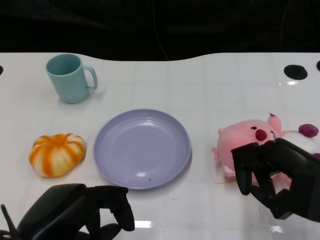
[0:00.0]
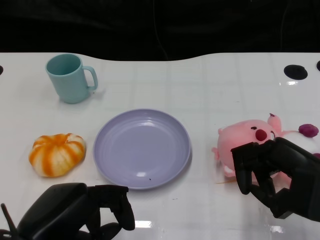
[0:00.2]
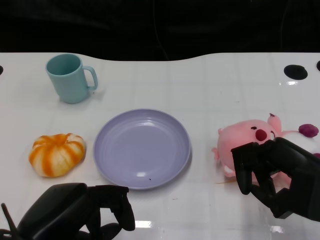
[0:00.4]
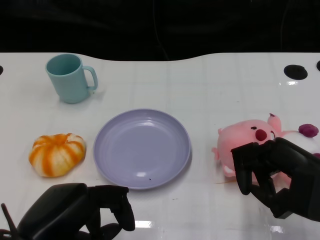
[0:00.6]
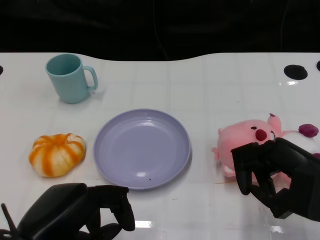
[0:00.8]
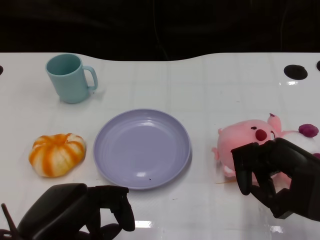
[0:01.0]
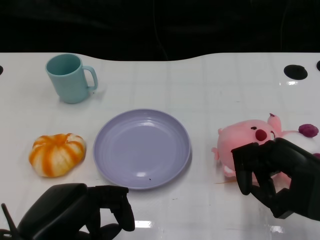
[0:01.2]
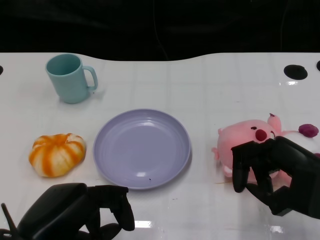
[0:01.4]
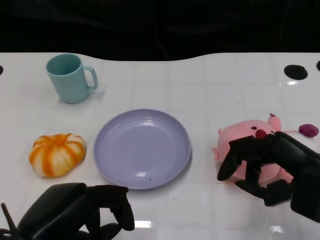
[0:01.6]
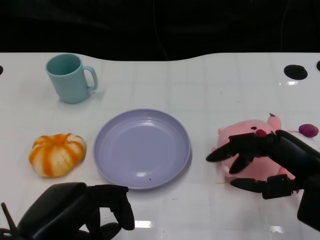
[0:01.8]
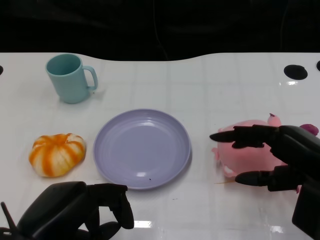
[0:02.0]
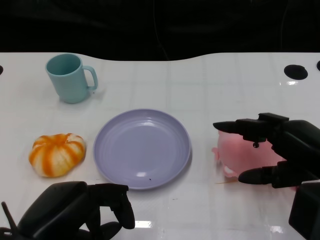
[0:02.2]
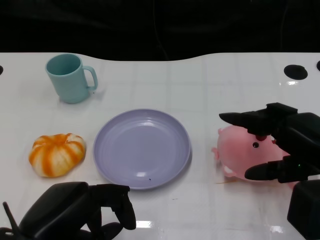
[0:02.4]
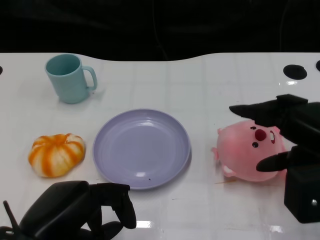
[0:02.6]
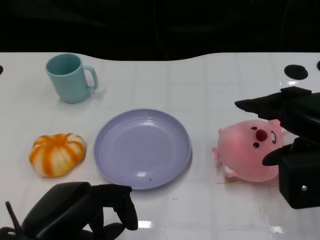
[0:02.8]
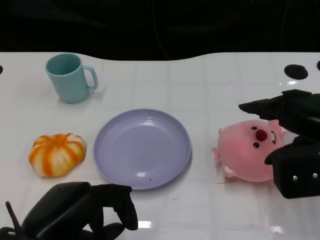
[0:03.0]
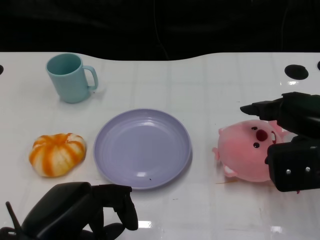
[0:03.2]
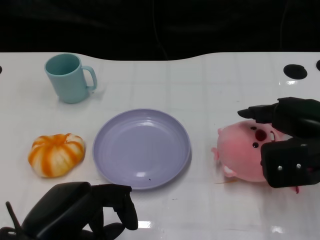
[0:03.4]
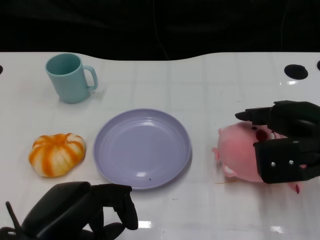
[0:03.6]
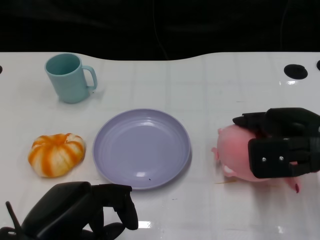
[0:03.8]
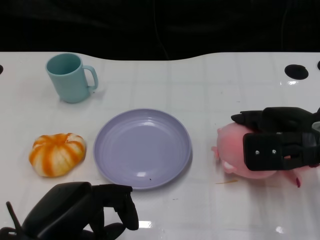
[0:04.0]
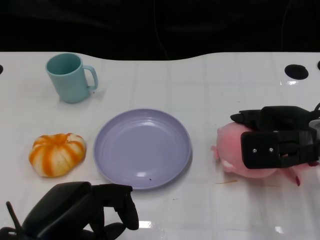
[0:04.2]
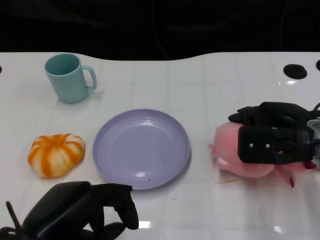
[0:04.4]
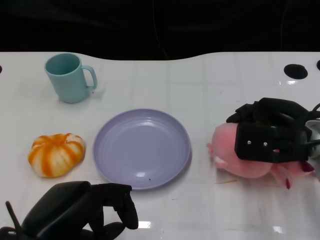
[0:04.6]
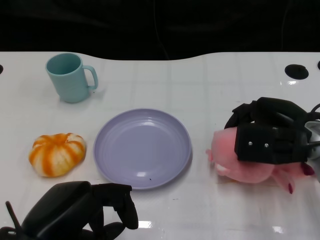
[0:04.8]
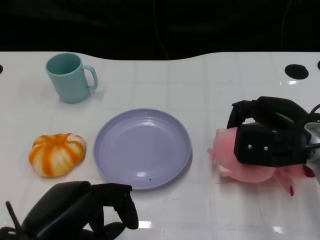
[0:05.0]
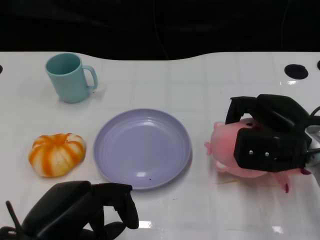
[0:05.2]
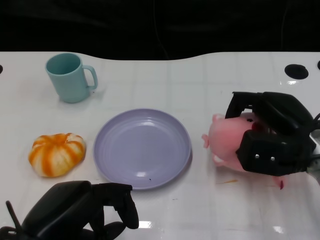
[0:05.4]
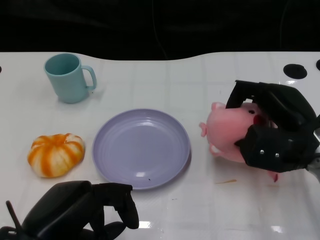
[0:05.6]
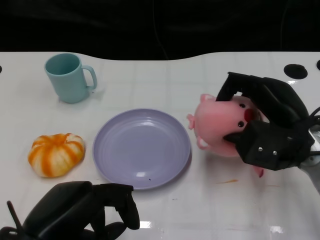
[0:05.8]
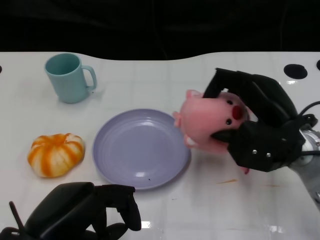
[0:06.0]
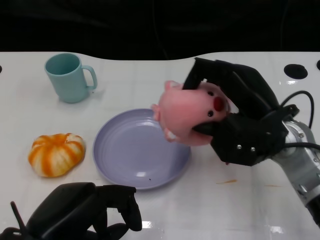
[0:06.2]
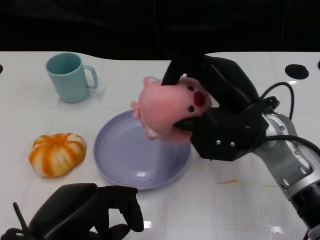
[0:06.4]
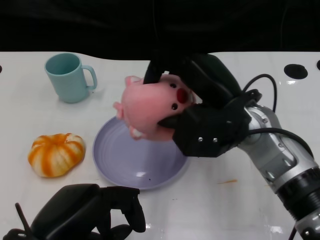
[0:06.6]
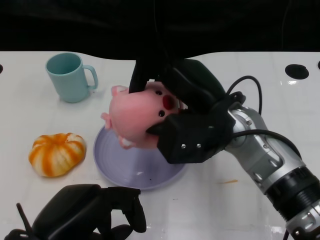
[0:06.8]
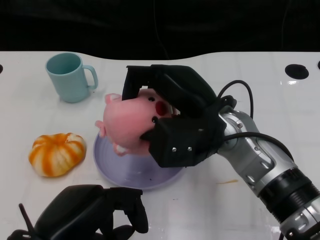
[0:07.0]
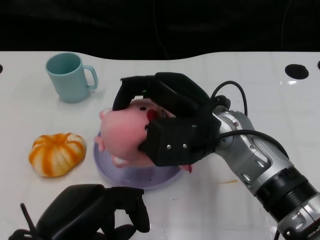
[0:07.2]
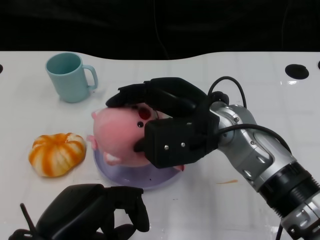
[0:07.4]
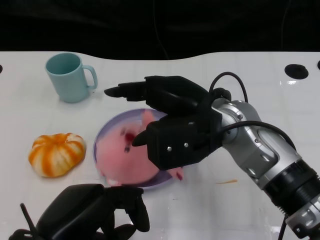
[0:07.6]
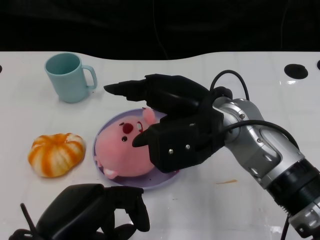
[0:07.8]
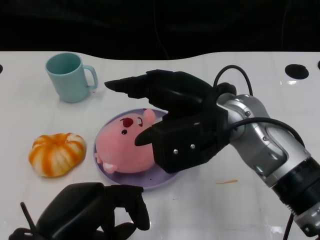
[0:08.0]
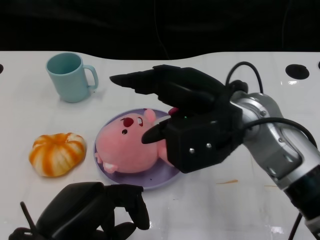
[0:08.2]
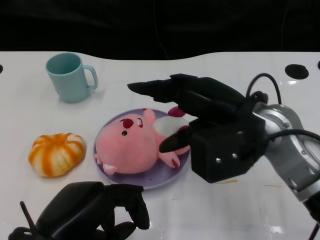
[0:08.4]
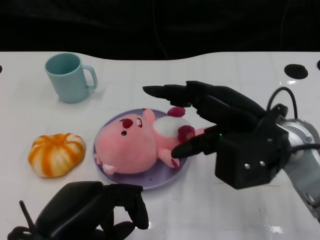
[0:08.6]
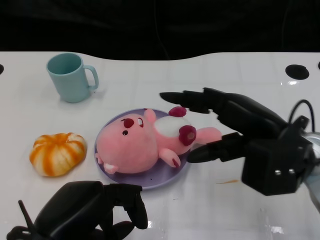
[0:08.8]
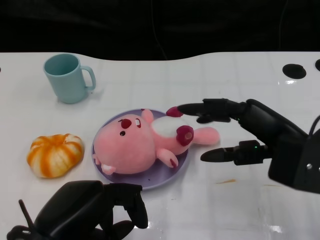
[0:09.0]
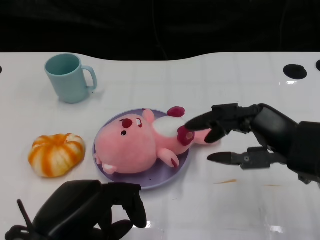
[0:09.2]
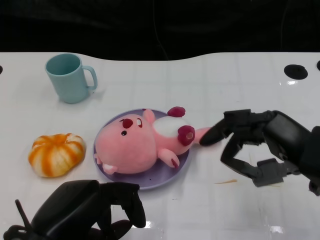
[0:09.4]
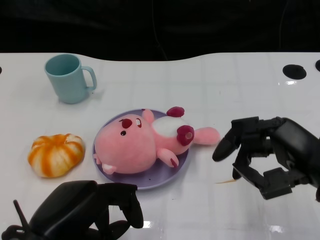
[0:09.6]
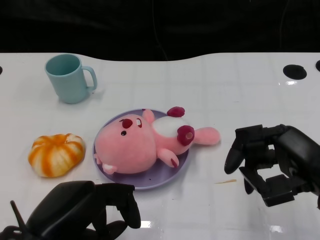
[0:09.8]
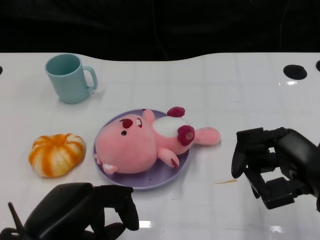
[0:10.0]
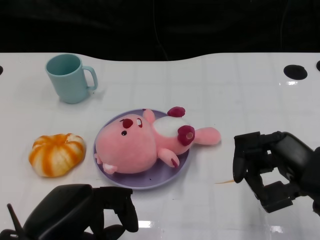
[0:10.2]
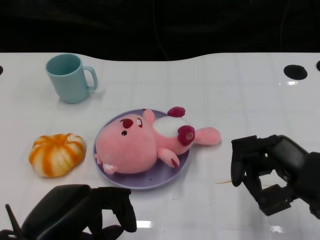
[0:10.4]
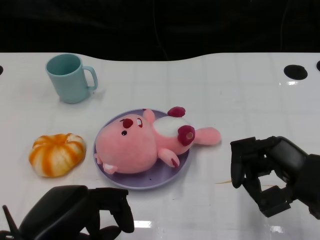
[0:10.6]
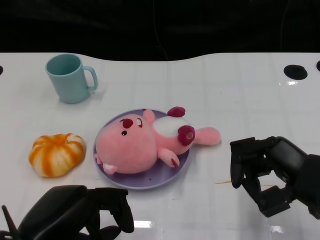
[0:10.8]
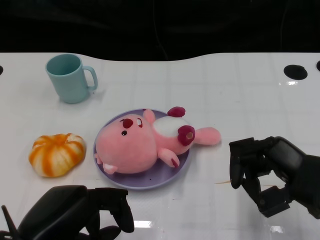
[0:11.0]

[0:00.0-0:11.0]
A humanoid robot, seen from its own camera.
Task of the whole recording: Pick up the doll on the other side of the plate and place it into the plate.
Step, 0:01.2 to 0:05.8: Grasp the pink doll with the right gripper.
Step, 0:06.2 to 0:08.2: Place the pink doll into the plate with the right gripper.
0:01.6 to 0:03.2: The right hand ends up some 5 cm from where it was.
0:03.2 to 0:04.8: The right hand heads downward, covering some 5 cm.
0:04.8 to 0:06.2: The right hand travels to the left by about 5 cm.
0:06.2 to 0:07.8: The right hand moves to the left, roughly 10 cm.
0:07.8 to 0:09.4: The right hand travels to the right and backward by some 15 cm.
0:09.4 to 0:11.0: The hands stay close to where they were, moving slightly.

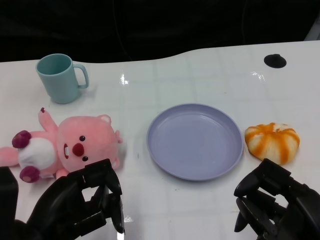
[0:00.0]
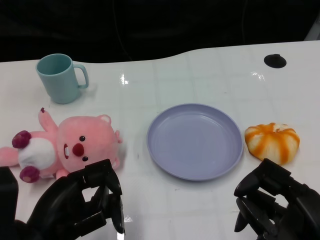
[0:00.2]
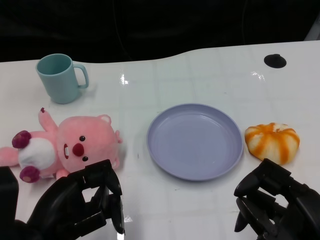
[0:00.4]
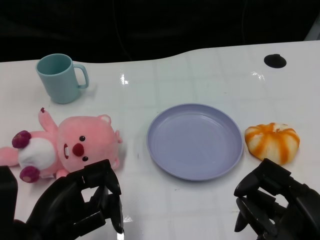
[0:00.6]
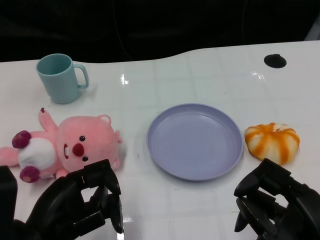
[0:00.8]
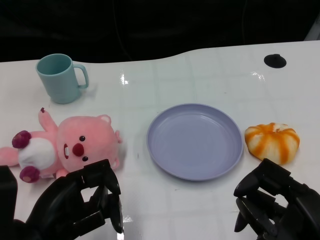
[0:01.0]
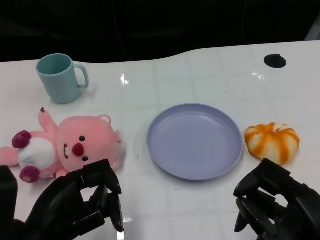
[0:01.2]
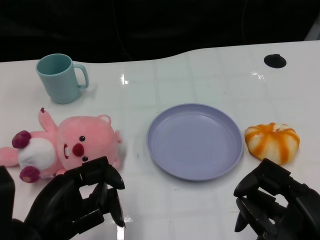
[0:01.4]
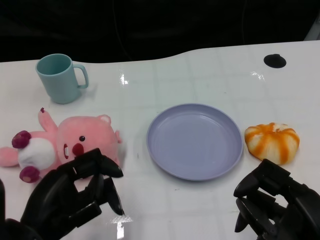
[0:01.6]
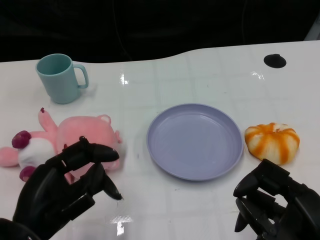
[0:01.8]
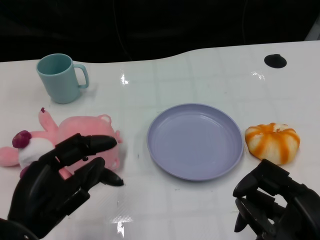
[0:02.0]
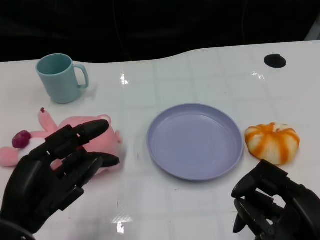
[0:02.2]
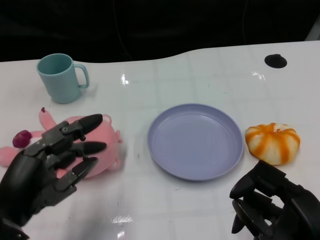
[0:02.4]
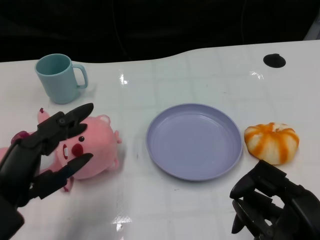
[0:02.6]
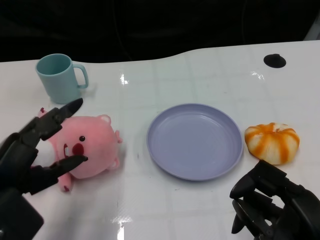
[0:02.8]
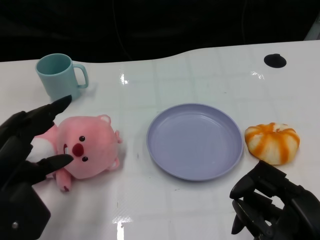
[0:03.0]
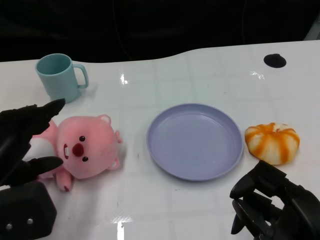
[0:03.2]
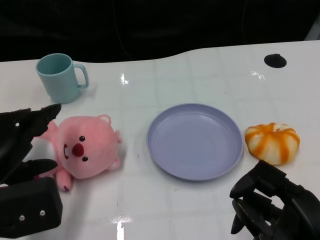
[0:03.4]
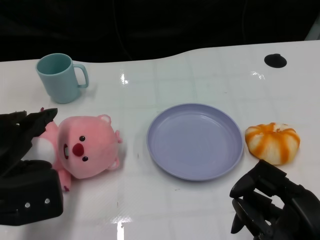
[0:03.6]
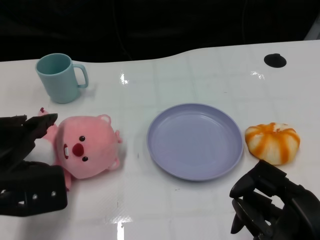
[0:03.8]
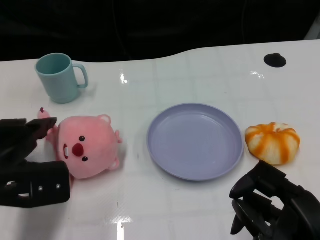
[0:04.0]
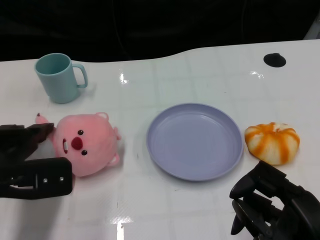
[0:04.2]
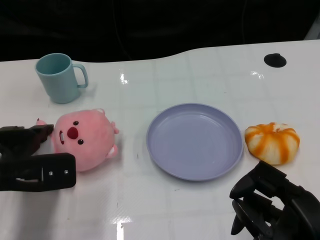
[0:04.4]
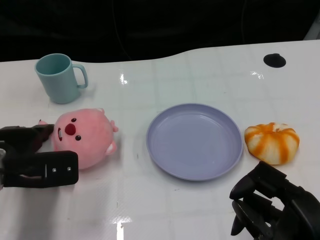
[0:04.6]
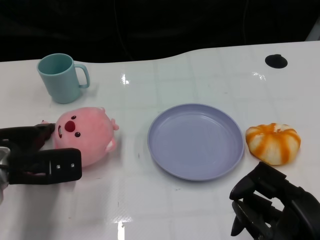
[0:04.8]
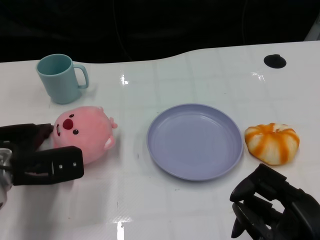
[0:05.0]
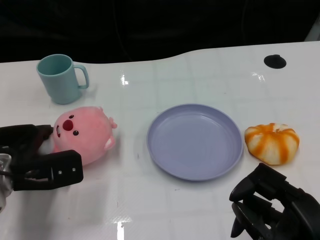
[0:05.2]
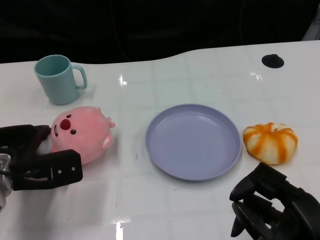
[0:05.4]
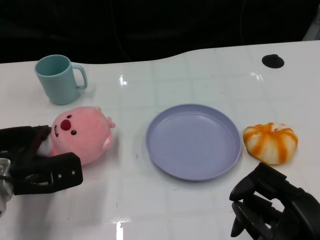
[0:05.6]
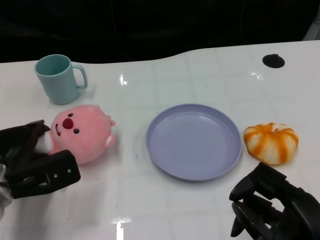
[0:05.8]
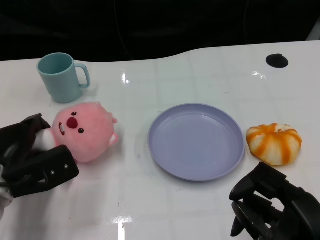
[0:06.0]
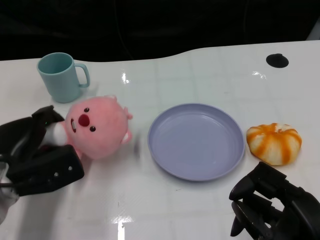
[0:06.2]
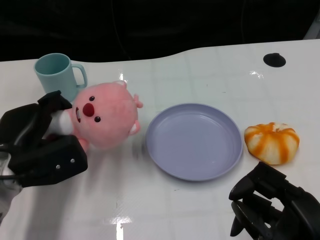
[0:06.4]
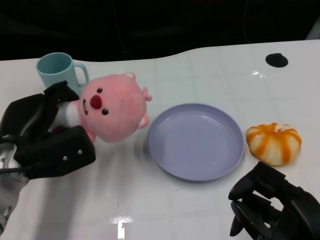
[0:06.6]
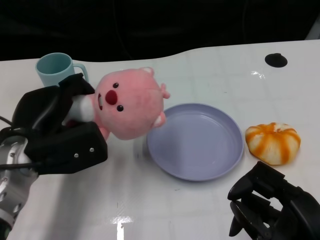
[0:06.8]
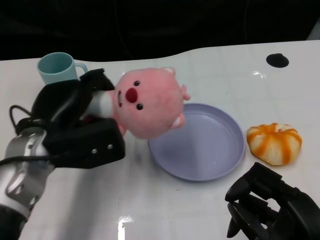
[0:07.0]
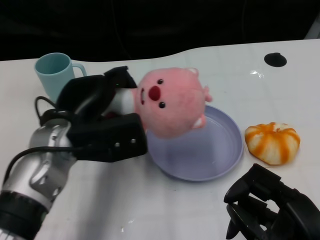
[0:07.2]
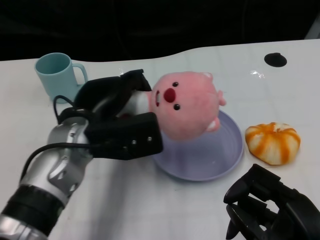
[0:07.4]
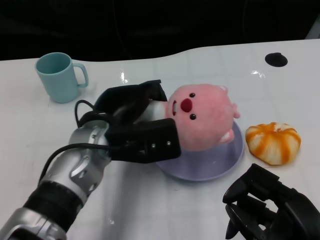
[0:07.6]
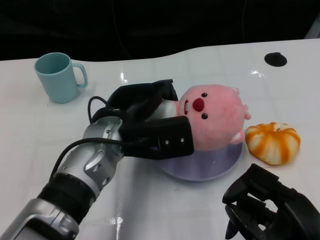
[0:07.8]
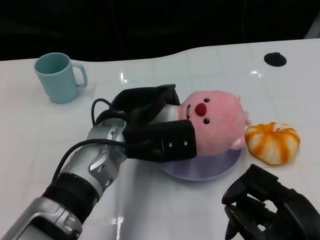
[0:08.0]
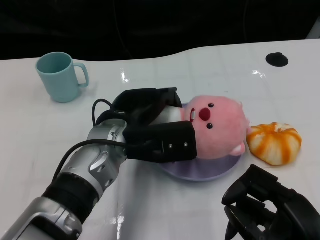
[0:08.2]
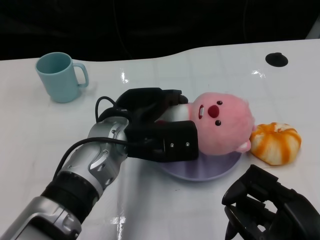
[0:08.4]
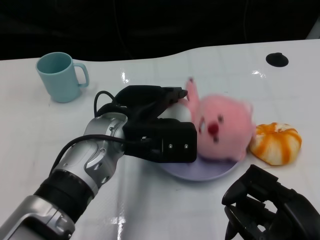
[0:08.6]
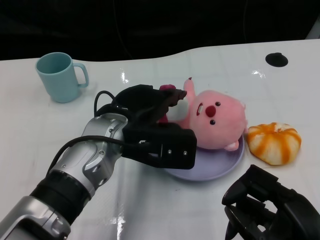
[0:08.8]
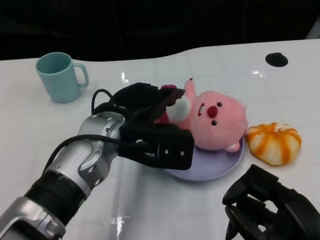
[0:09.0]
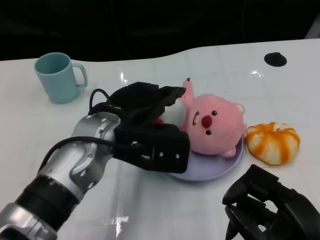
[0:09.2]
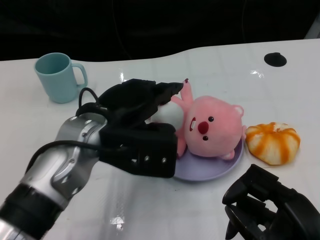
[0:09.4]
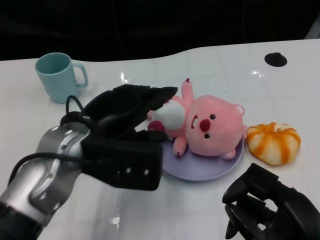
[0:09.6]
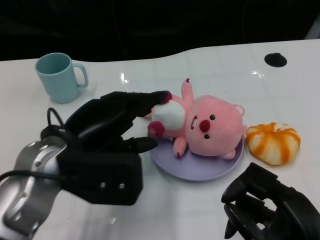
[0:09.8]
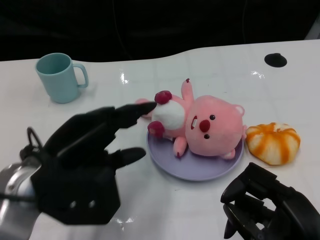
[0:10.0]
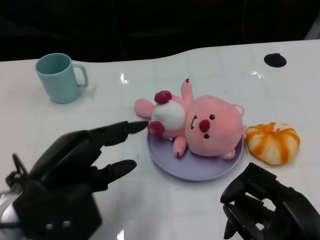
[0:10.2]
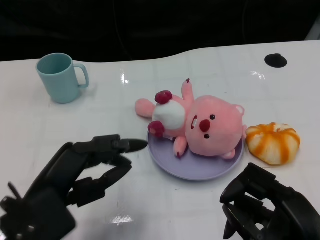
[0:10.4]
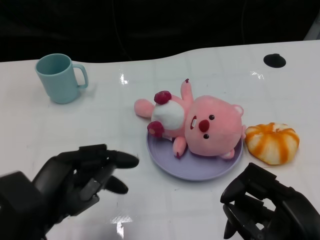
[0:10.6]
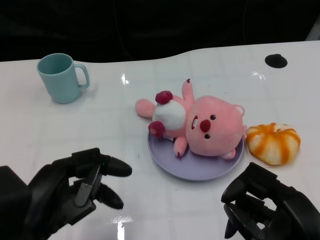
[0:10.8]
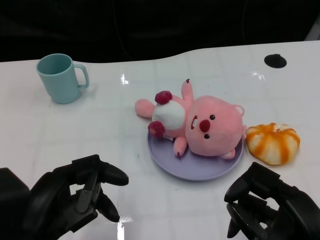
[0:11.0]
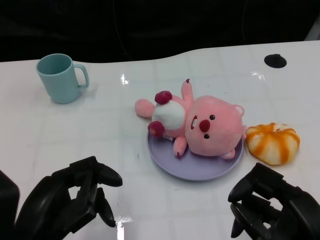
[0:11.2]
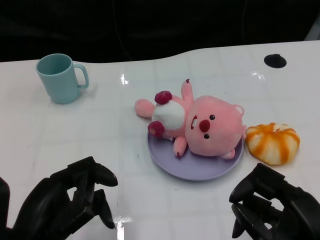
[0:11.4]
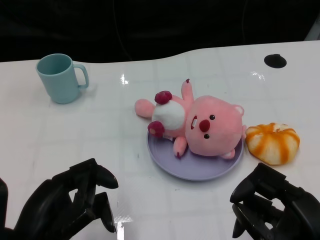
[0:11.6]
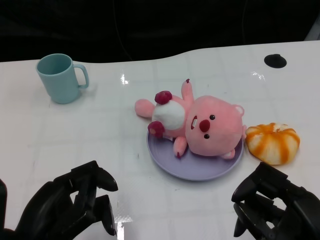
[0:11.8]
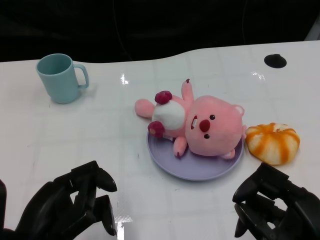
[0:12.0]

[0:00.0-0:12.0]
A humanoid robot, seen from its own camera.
Task of the whole recording: Pick up the doll on one side of the plate and place it into the plate.
Step, 0:01.2 to 0:06.2: Grasp the pink doll with the left gripper.
Step, 0:06.4 to 0:08.8: Place the pink doll into the plate with the left gripper.
0:01.6 to 0:03.0: The left hand moves roughly 5 cm.
0:03.0 to 0:04.4: The left hand is displaced forward by roughly 10 cm.
0:06.0 to 0:07.6: The left hand shifts roughly 15 cm to the right and upward.
0:07.6 to 0:09.0: There are only small adjustments of the hands.
0:09.0 to 0:10.4: The left hand heads backward and to the left, covering about 15 cm.
